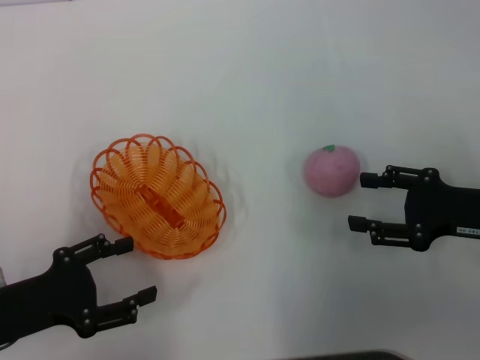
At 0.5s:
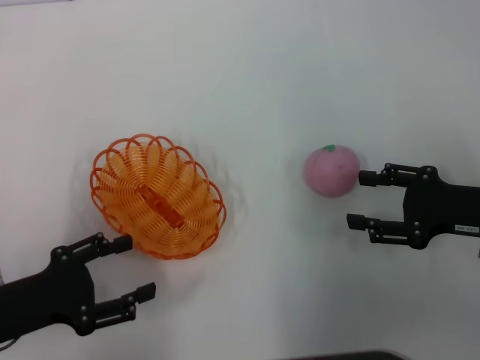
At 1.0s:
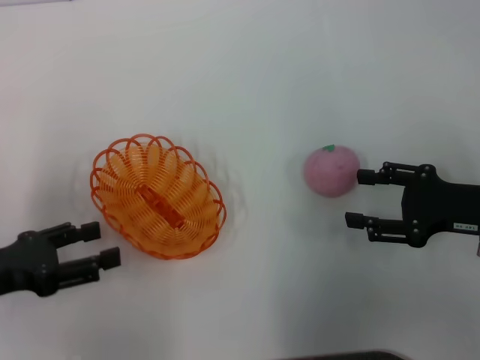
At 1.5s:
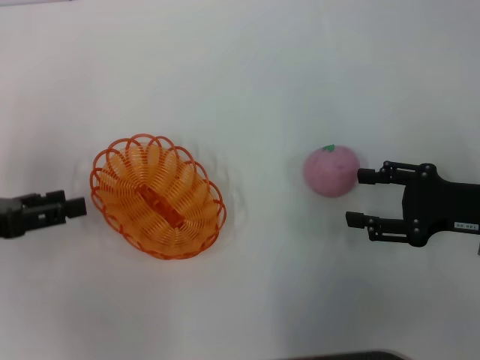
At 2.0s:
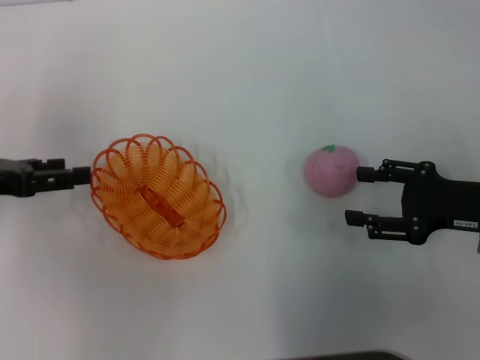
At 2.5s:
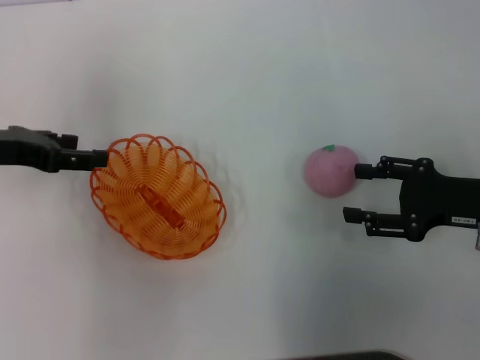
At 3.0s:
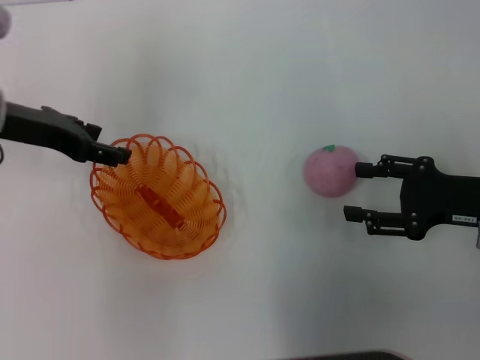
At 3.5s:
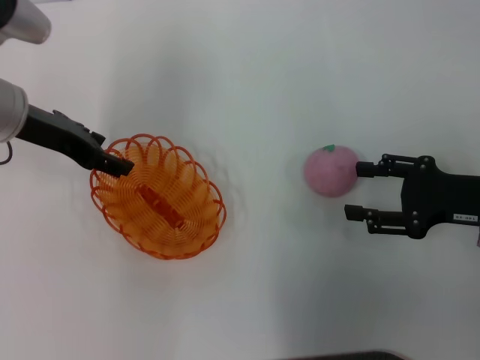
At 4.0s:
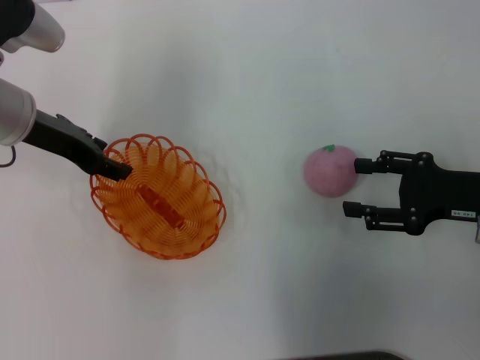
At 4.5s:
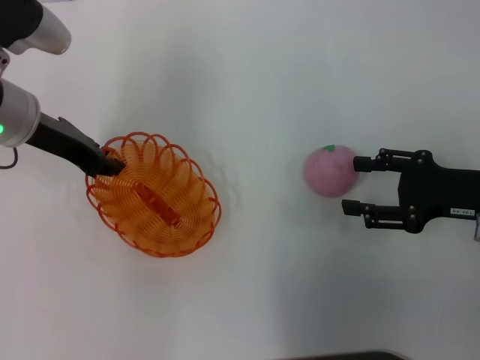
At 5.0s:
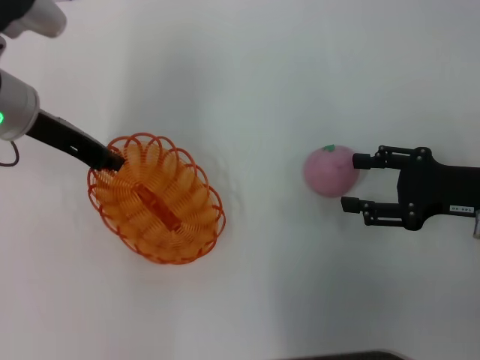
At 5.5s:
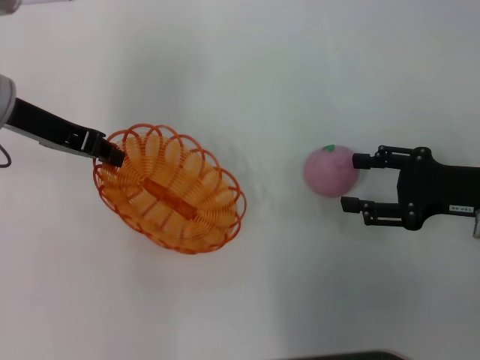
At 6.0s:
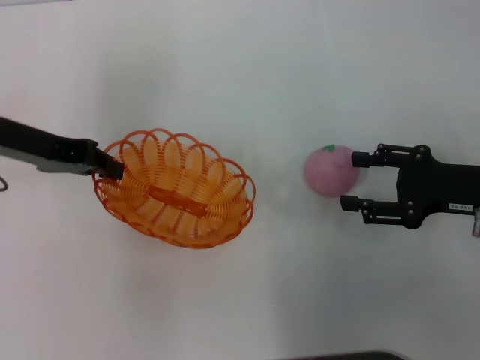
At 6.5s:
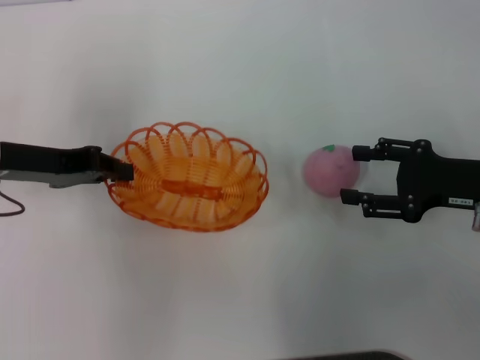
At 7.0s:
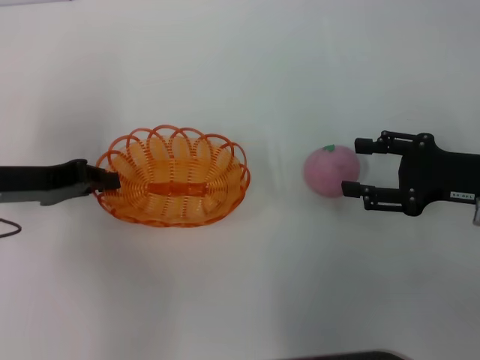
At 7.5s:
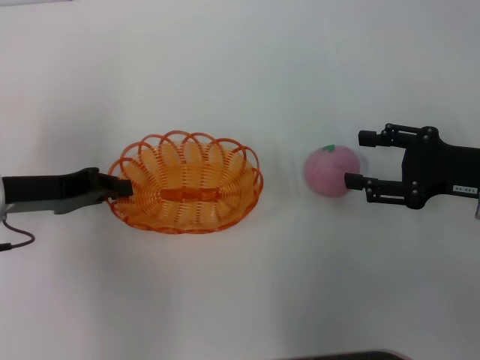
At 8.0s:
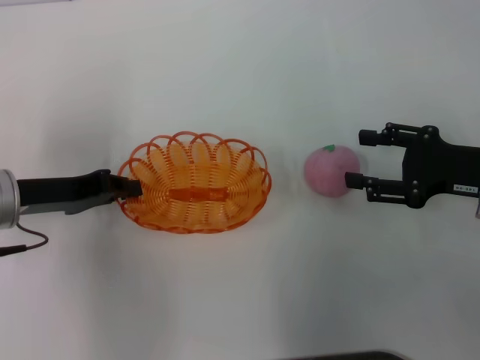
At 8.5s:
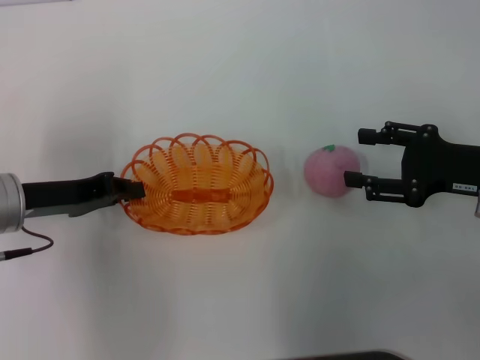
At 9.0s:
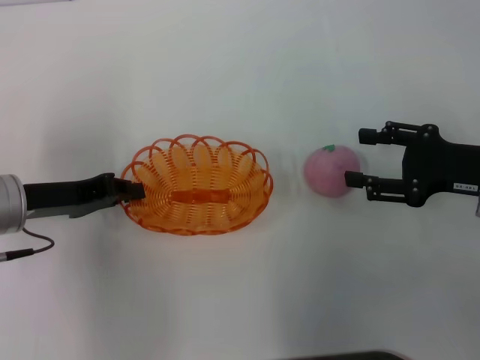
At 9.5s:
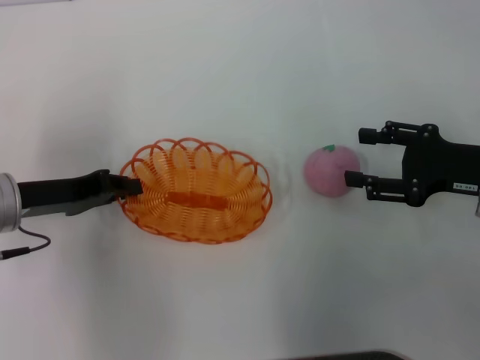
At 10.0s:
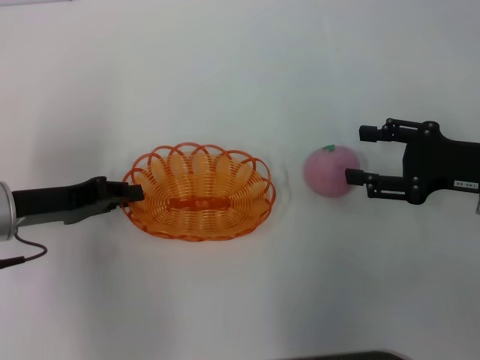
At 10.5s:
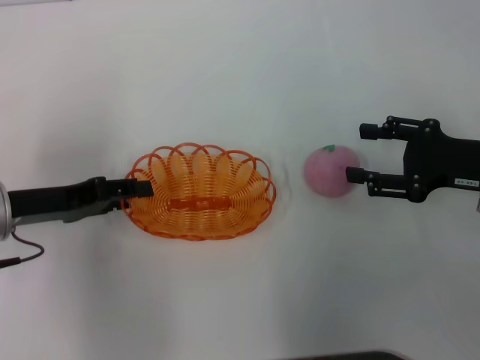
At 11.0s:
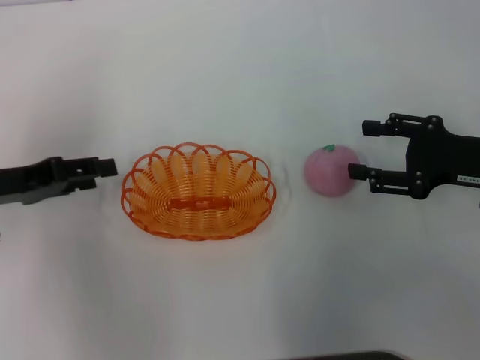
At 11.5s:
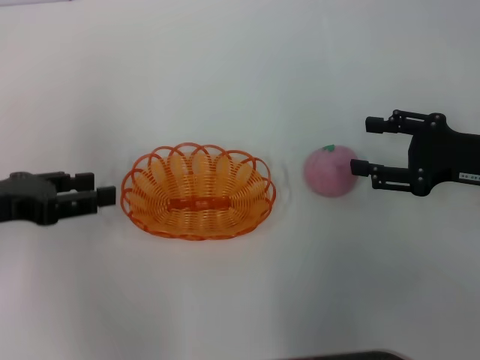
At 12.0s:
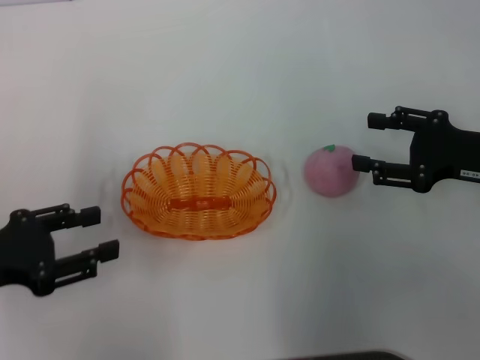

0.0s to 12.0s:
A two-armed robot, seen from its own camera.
Step, 0.0s to 5.5s: Pick up the basket with the left gripper.
Step, 6.0s to 10.5s: Place the basket in the center of view with the left gripper.
0.0s to 2.0s: The left gripper goes some 15 cm forward and upward.
2.0s to 4.0s: The left gripper moves to the right and forward, some 15 cm.
4.0s to 6.0s: The left gripper closes.
6.0s to 8.0s: The left gripper shifts approximately 10 cm downward and backward.
8.0s to 10.0s: The two grippers keep their place.
10.0s to 12.0s: The left gripper heads backward, covering some 5 cm, and opens its fingers.

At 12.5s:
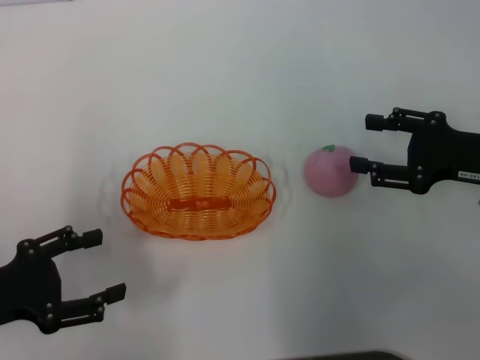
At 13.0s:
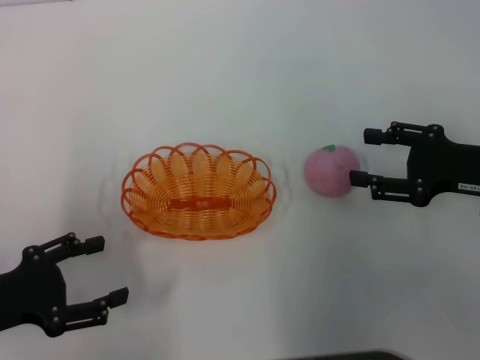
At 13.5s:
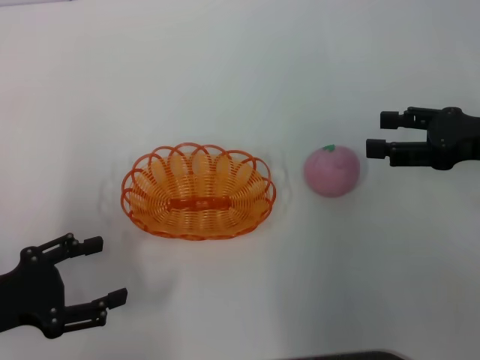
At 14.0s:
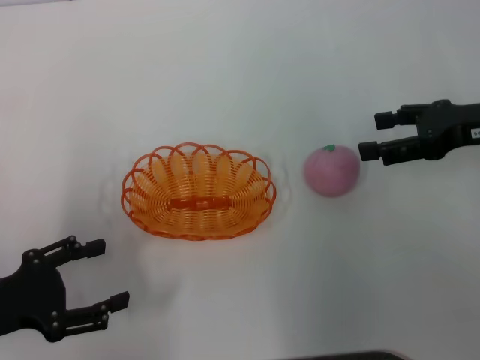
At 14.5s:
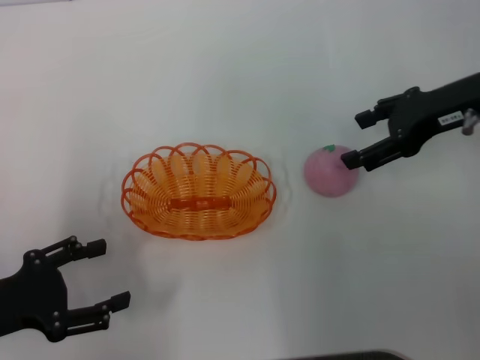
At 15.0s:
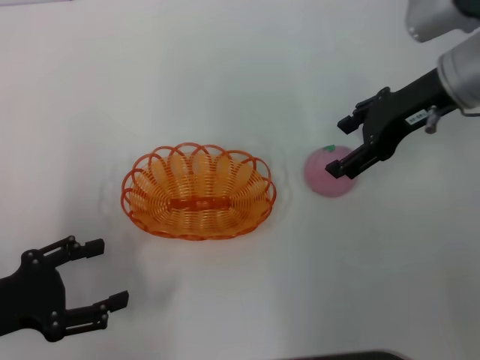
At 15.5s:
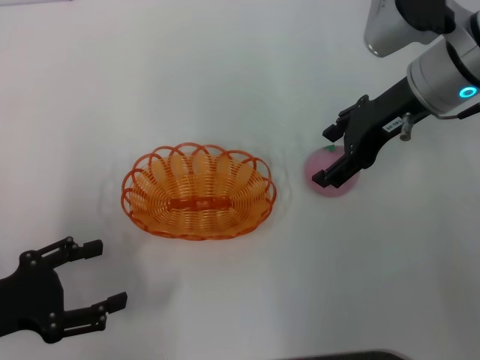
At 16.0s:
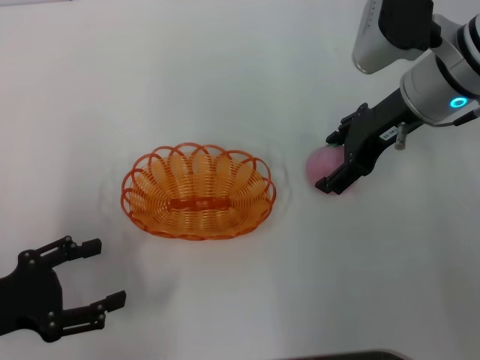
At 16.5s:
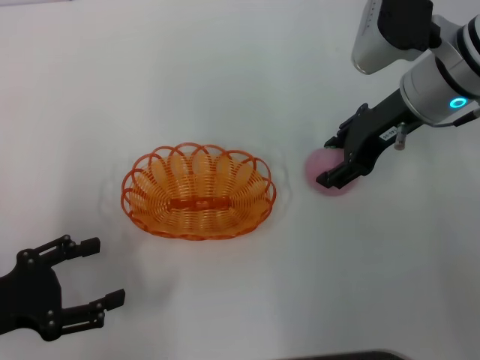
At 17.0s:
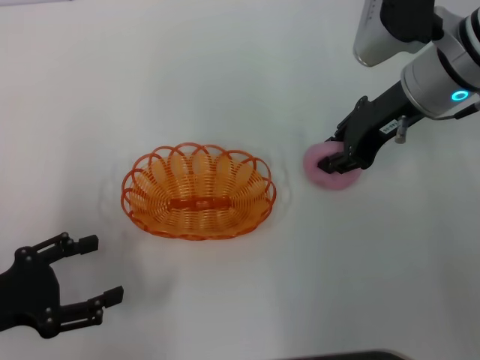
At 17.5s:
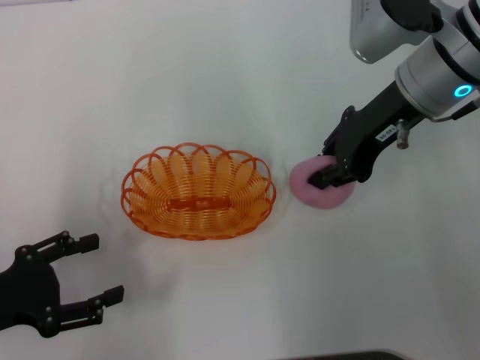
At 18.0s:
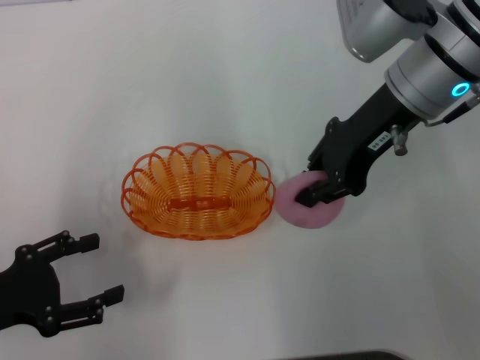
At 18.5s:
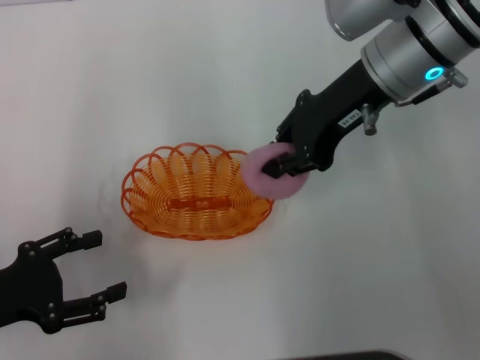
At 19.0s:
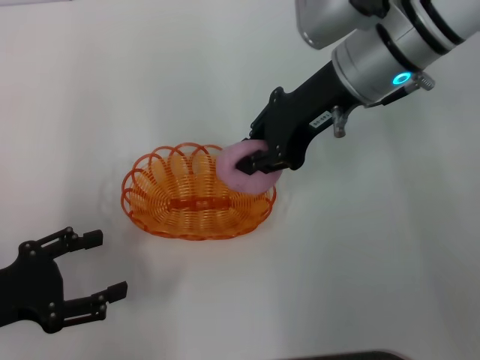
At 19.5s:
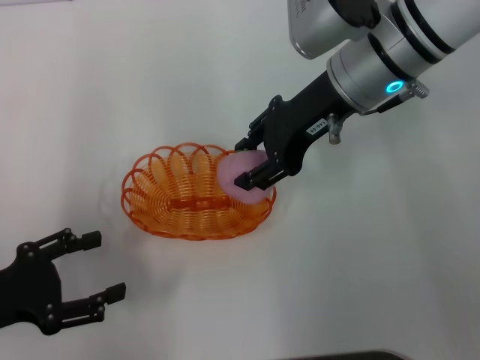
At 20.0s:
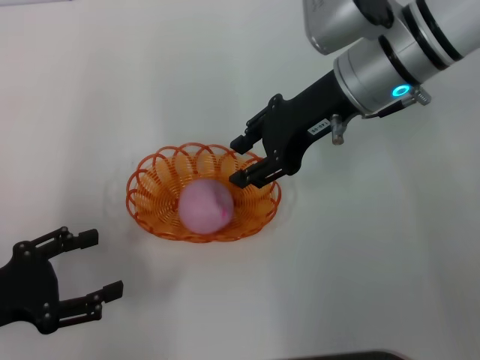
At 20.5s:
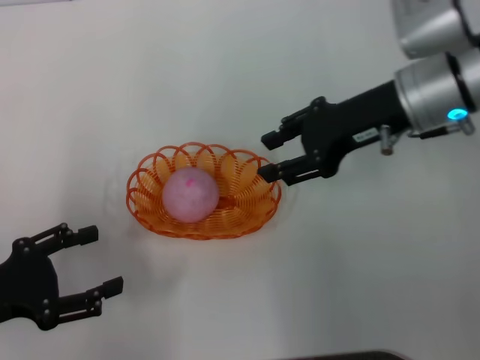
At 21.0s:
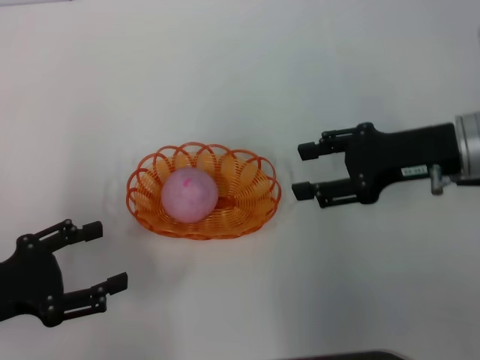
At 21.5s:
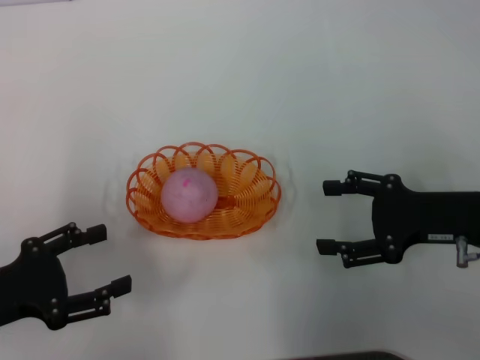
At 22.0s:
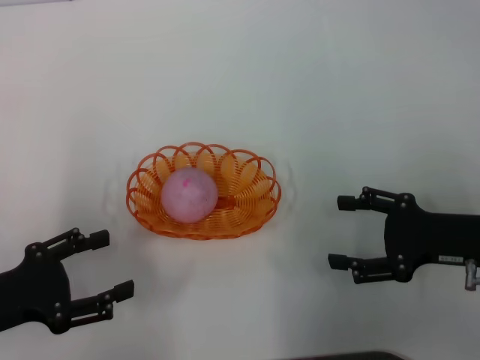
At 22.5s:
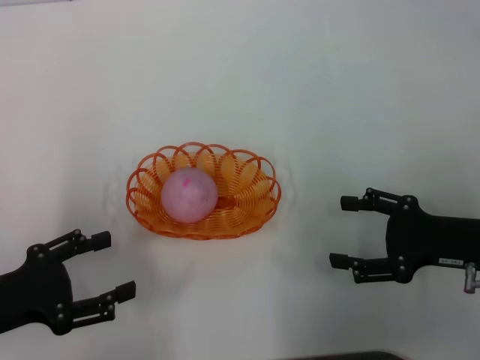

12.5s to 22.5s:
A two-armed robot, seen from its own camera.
Step, 12.5s to 17.5s: Pick up the peach with the right gripper.
Step, 18.0s to 20.0s: Place the peach into the basket with the right gripper.
12.5s to 14.5s: The right gripper goes approximately 10 cm forward and upward.
14.5s to 16.5s: The right gripper travels to the left by approximately 5 cm.
16.5s to 18.5s: The right gripper changes place by about 5 cm, and closes its fingers.
18.5s to 20.5s: The right gripper changes place by some 5 cm, and opens its fingers.
20.5s to 22.5s: The right gripper travels backward, downward and to the right by about 20 cm, and opens up.
